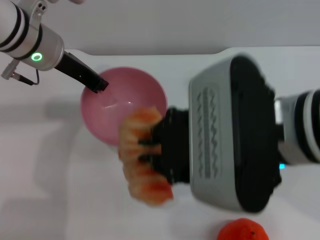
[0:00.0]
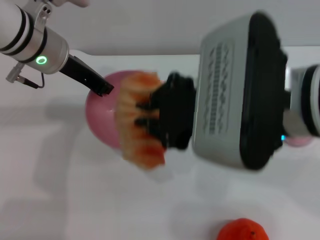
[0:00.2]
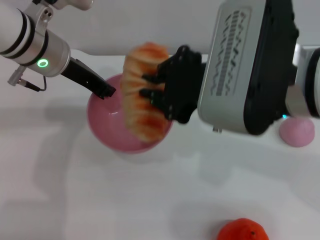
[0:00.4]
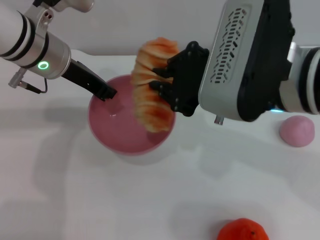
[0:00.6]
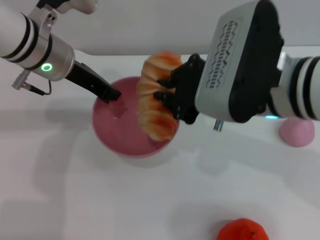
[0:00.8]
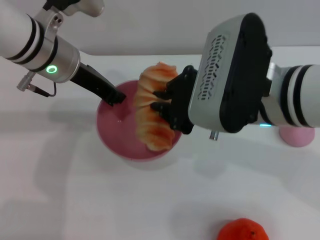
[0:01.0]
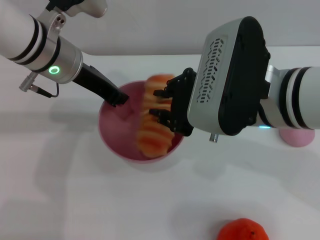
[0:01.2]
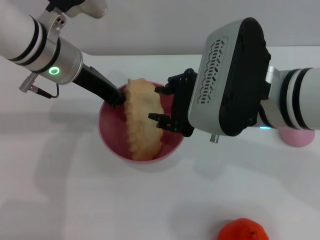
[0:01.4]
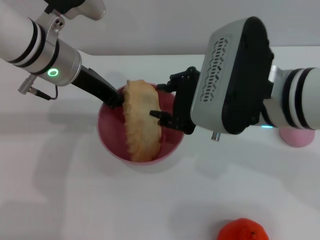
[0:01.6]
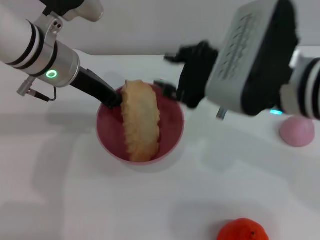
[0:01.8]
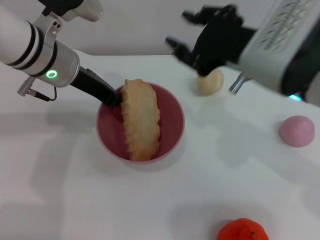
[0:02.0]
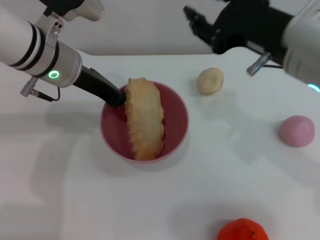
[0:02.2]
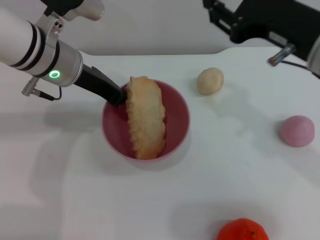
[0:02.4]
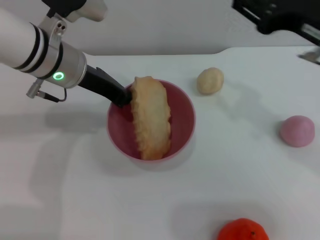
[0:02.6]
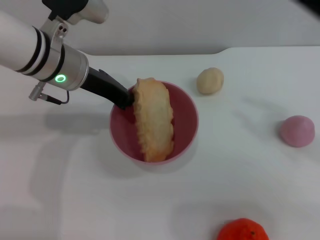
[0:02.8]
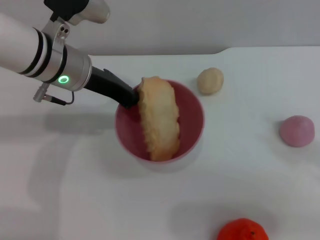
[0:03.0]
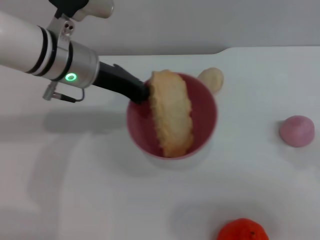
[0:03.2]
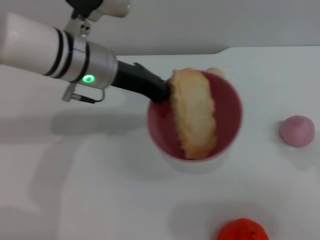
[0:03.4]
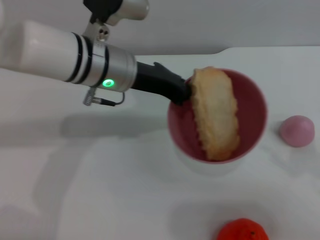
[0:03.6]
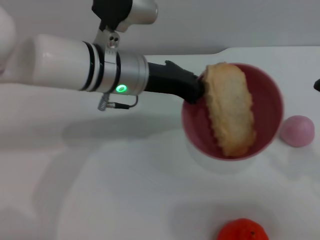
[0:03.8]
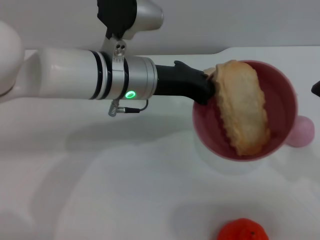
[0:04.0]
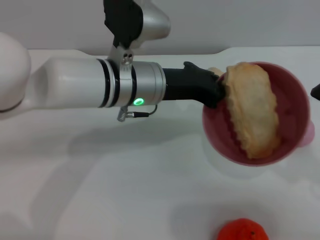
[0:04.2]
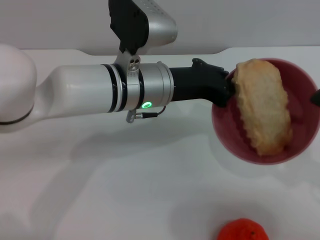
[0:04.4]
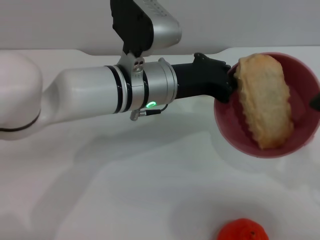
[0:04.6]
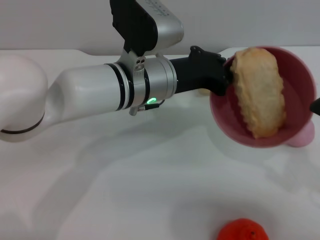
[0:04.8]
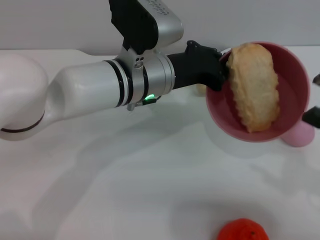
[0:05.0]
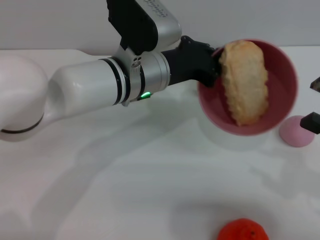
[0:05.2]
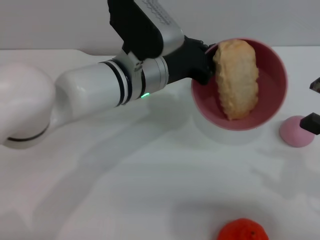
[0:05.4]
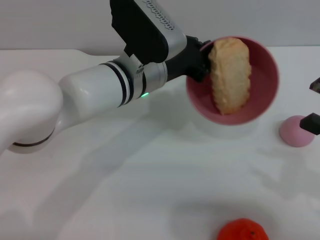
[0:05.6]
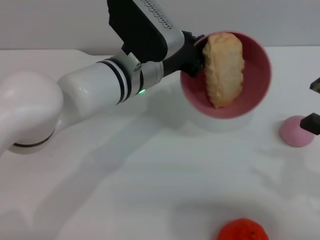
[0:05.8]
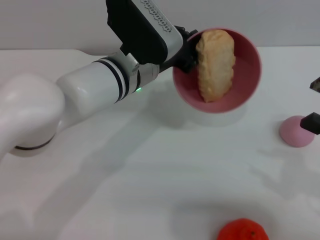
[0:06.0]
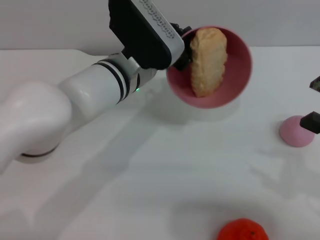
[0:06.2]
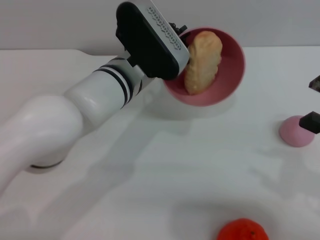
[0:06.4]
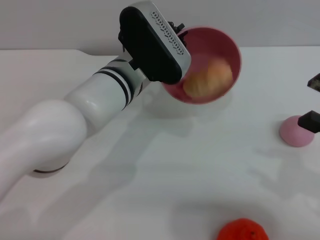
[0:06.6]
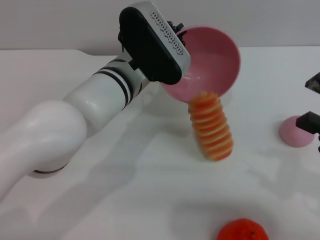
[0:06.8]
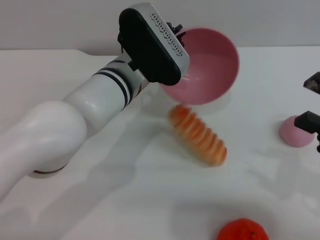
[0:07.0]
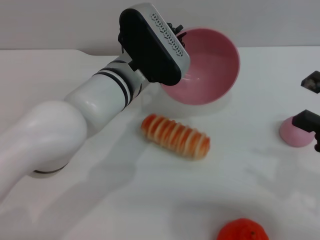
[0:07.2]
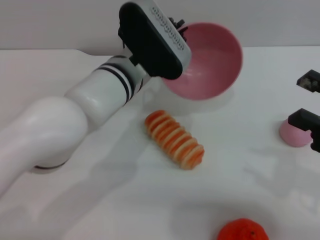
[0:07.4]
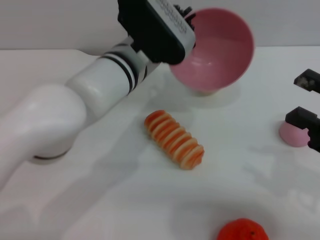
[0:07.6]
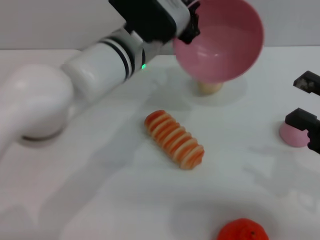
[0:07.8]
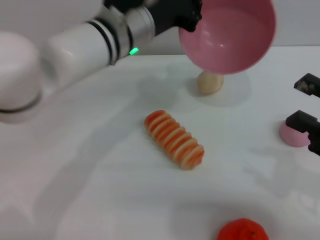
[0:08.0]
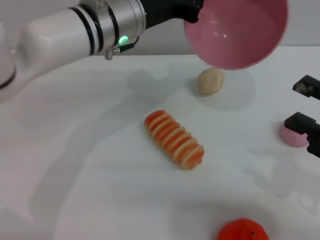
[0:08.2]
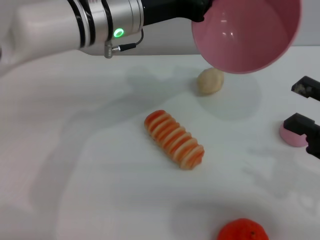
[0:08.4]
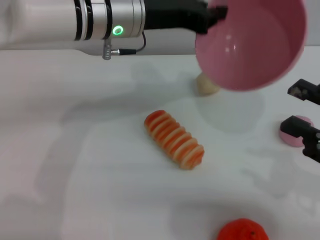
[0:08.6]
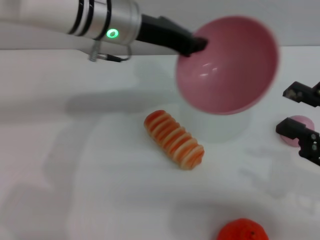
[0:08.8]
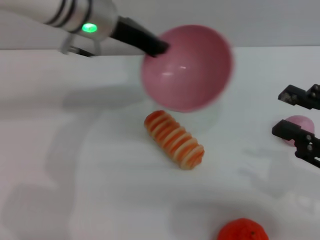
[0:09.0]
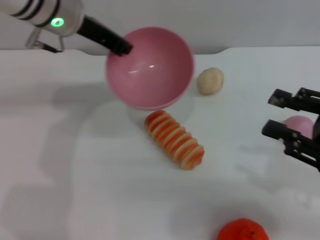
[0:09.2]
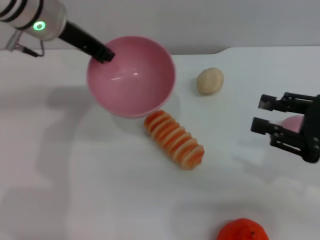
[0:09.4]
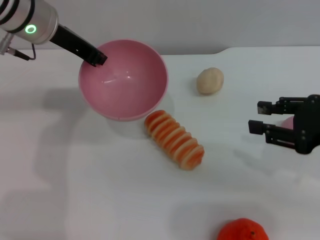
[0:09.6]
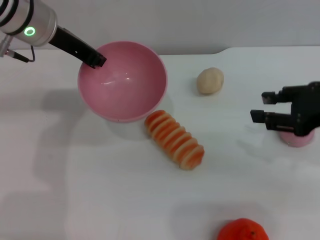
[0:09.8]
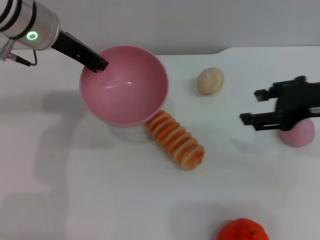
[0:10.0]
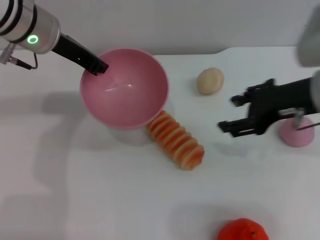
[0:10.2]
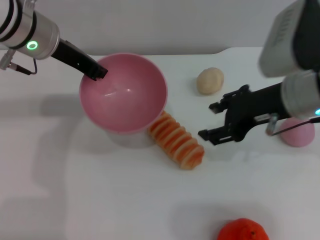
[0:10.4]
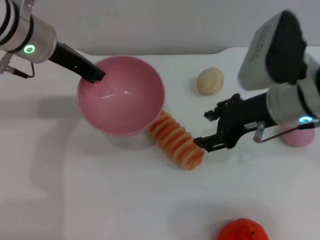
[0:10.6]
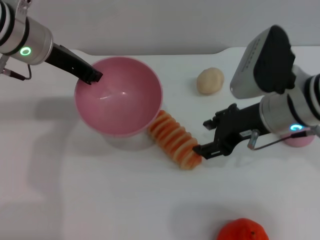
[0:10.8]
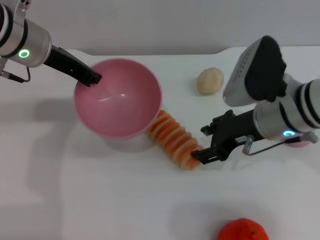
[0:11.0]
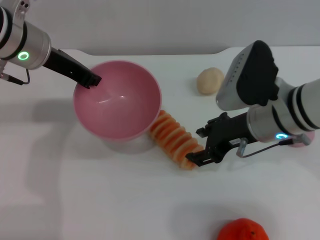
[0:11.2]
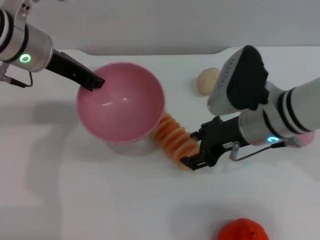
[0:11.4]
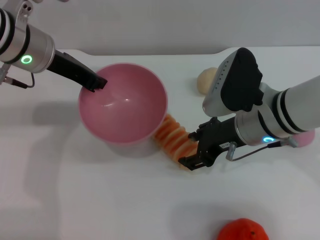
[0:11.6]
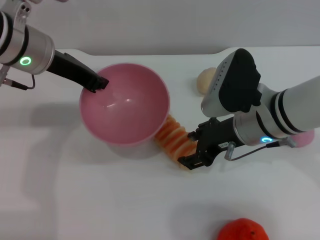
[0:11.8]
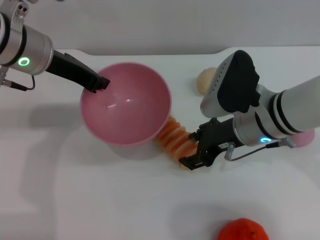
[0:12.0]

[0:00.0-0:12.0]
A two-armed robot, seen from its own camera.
Task of the whole recording: put the bread into the pink bowl and pour it out repeatedly.
Step, 0:00.0 to 0:01.4: Place the bread into the bowl.
Step, 0:01.8 to 0:07.6: Pour the bread out of the bowl.
0:00.0 to 0:01.6: The right gripper travels forward by about 5 cm, and opens.
0:01.6 to 0:03.0: The right gripper travels to the right by some 20 cm.
0:03.0 to 0:04.4: The left gripper is displaced to the right by approximately 10 cm, while the right gripper moves downward, roughly 5 cm.
0:07.6 to 0:09.0: The left gripper goes approximately 10 cm upward, to the left and forward.
0:09.0 to 0:10.4: The left gripper is displaced to the left by roughly 5 cm; the right gripper goes approximately 15 cm forward and to the left.
0:10.4 to 0:12.0: The right gripper is displaced downward by some 10 cm.

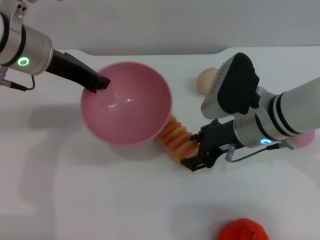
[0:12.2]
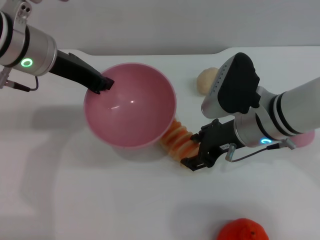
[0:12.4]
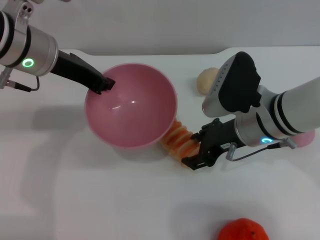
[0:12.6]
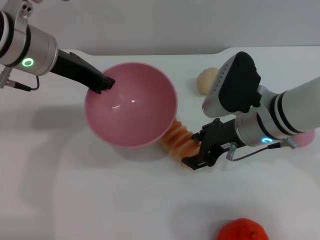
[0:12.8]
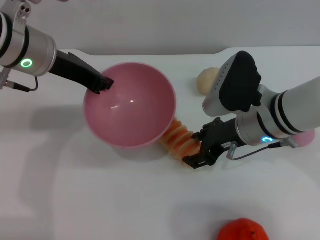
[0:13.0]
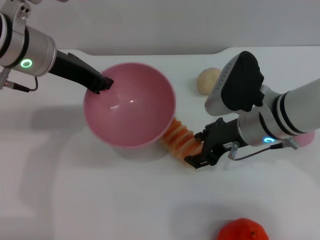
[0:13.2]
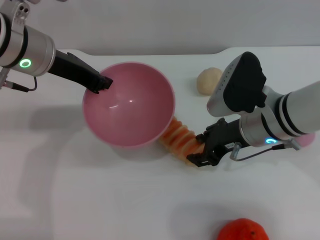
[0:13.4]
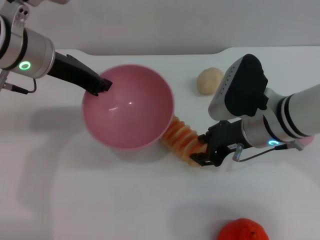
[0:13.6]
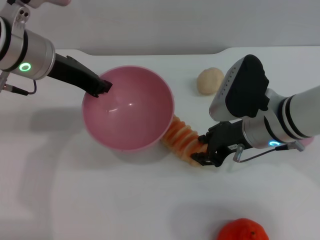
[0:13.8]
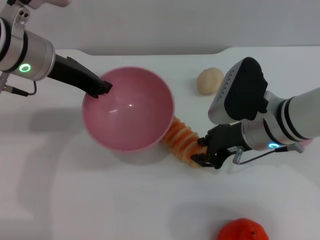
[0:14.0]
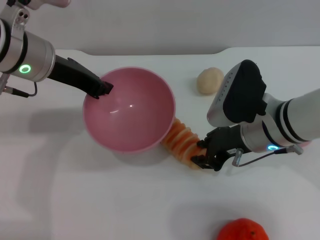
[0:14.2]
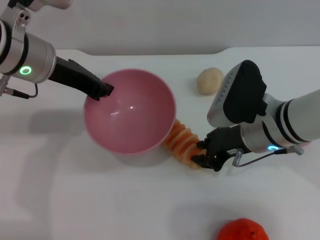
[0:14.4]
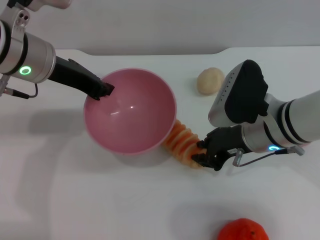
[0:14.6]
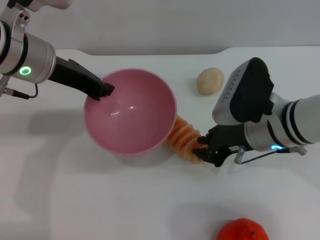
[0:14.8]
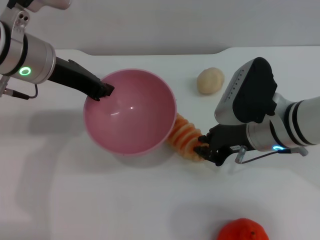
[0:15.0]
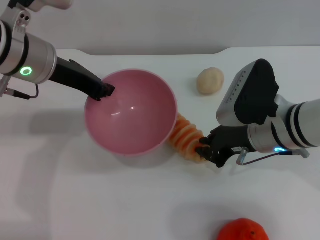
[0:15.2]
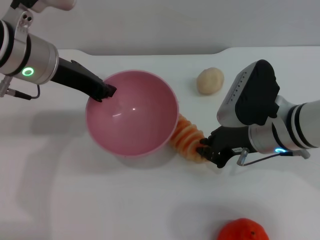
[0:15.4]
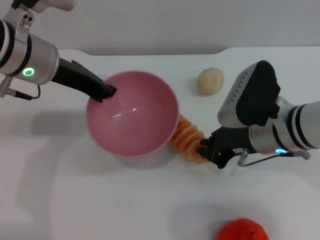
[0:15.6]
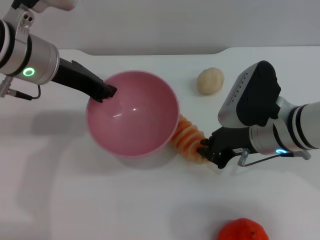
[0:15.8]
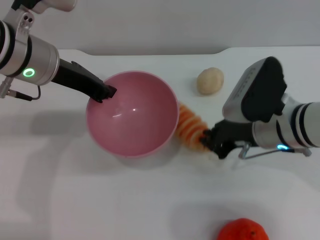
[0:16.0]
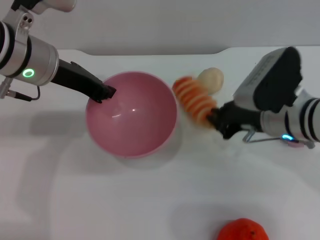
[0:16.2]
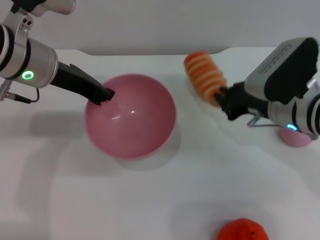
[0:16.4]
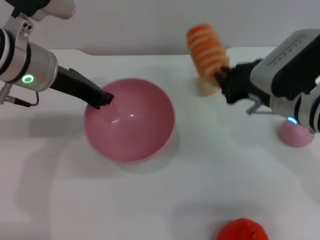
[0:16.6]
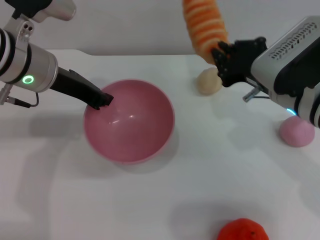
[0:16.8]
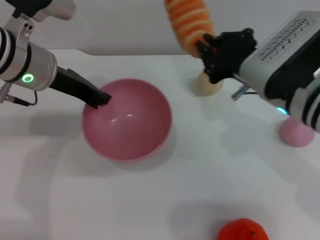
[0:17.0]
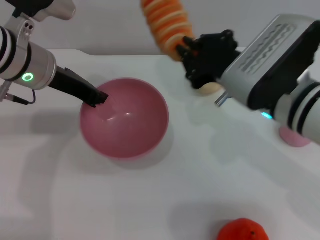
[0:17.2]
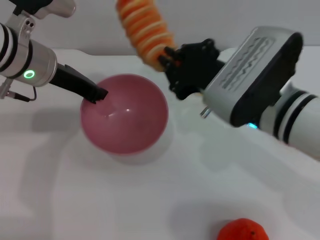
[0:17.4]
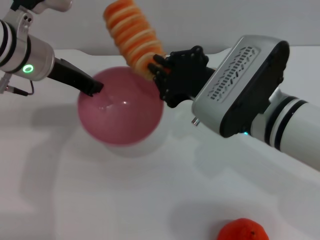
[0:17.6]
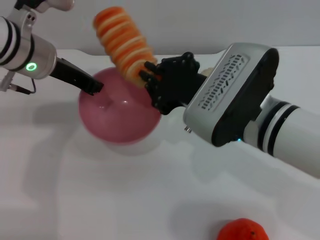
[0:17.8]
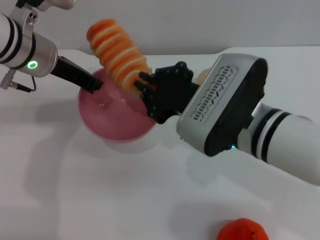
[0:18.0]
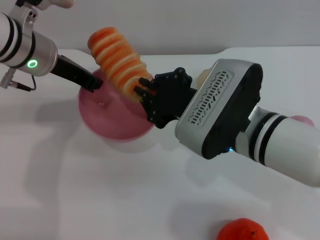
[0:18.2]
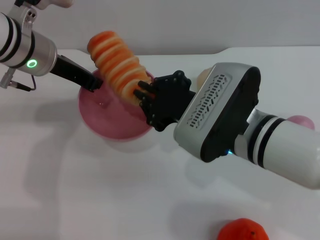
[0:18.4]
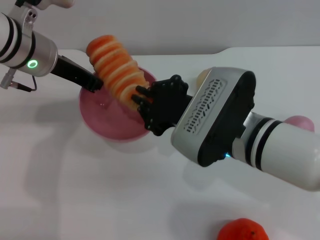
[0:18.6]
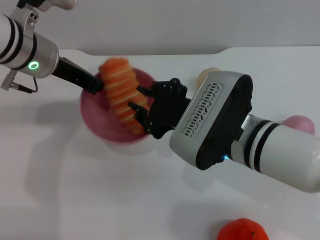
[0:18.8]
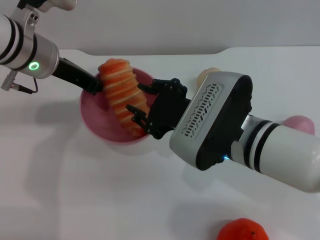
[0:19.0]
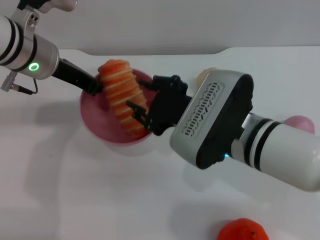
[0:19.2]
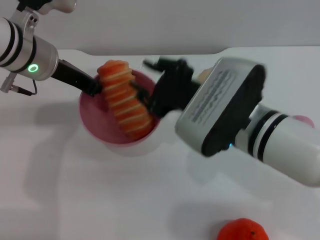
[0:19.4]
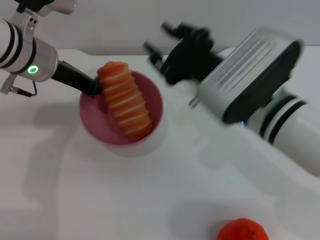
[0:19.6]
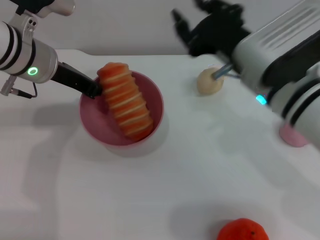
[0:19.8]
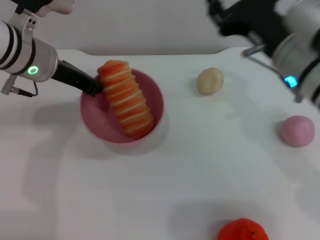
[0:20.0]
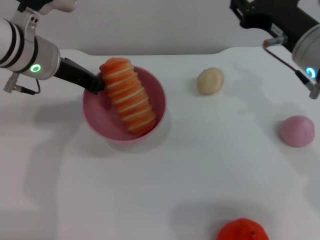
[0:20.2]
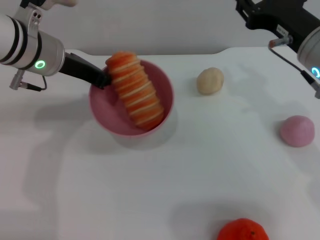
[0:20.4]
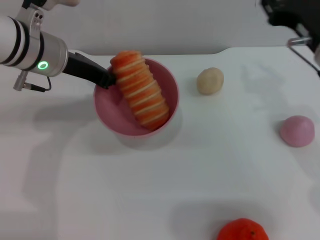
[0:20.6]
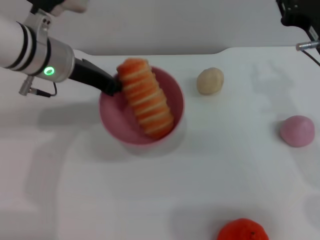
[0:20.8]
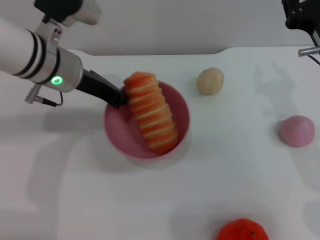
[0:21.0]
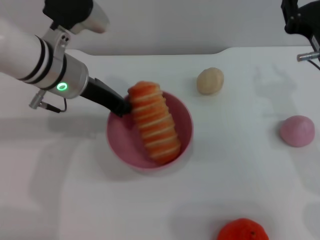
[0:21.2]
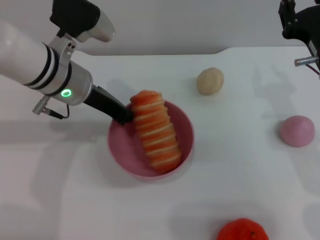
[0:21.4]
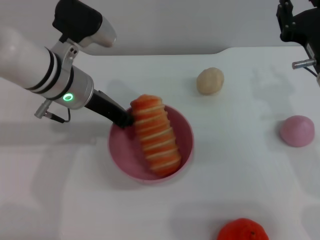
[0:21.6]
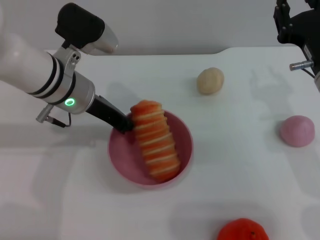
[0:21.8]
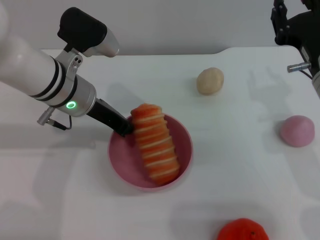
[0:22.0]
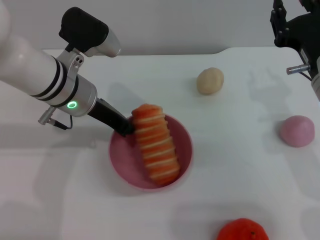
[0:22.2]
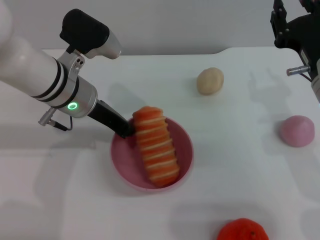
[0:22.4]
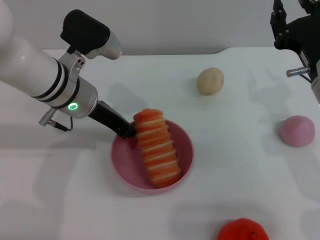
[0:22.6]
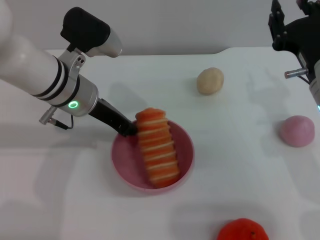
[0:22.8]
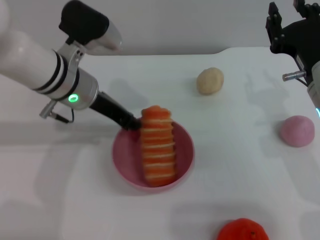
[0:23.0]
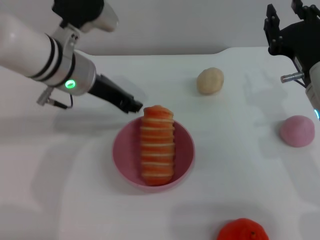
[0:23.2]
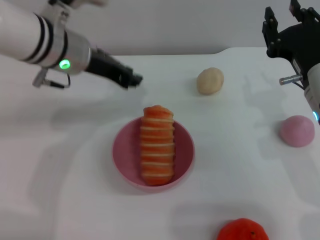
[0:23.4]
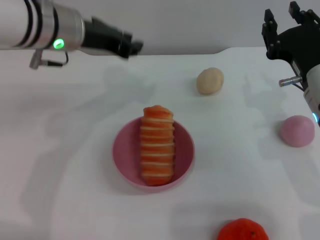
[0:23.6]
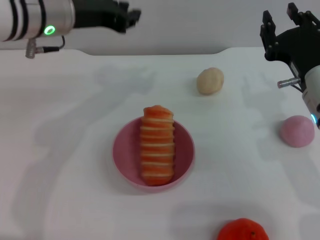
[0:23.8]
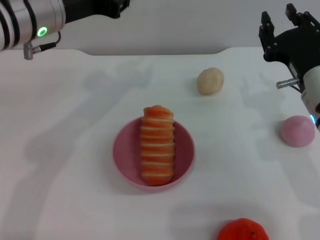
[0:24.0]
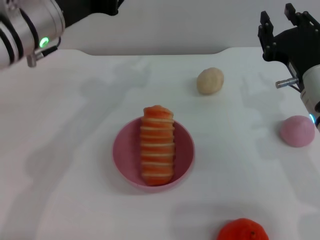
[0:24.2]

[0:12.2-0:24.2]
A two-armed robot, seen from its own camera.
Task of the whole recording: put the bread into the pink bowl and pour it out repeatedly.
Step, 0:12.2 to 0:16.2: Pick up the bread with the right gripper.
Step, 0:16.4 to 0:19.6: Place the bread into the bowl.
Step, 0:19.8 to 0:23.2: Place the bowl on the table.
0:12.2 to 0:13.8: Both grippers stay about where they are.
0:13.8 to 0:15.2: The right gripper closes.
0:16.6 to 0:18.2: The right gripper goes some 10 cm to the left and backward.
0:18.2 to 0:19.8: The right gripper shifts by roughly 5 cm, and opens up.
0:19.8 to 0:21.2: The right gripper moves to the right, some 10 cm.
0:22.6 to 0:24.2: The left gripper shifts about 5 cm upward.
